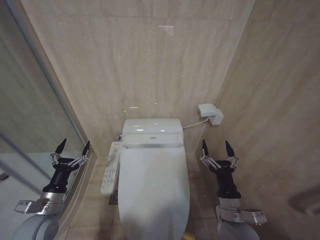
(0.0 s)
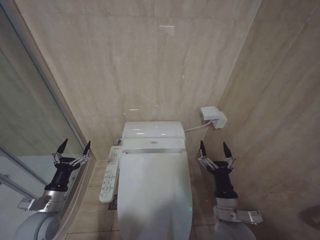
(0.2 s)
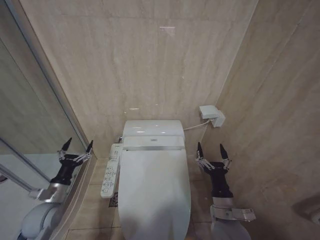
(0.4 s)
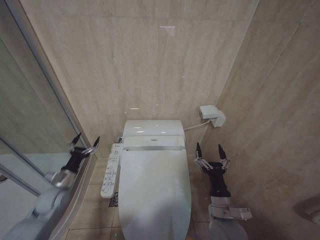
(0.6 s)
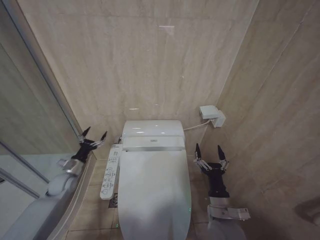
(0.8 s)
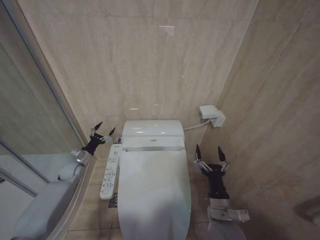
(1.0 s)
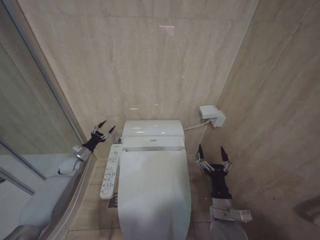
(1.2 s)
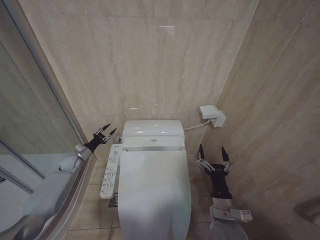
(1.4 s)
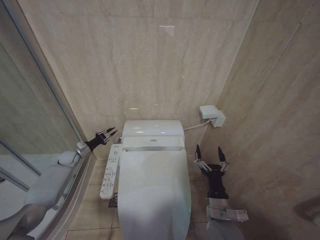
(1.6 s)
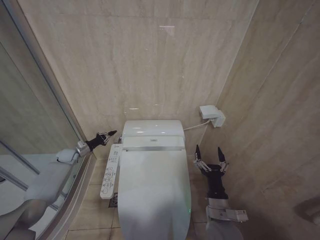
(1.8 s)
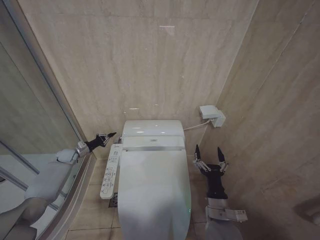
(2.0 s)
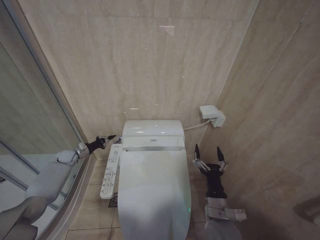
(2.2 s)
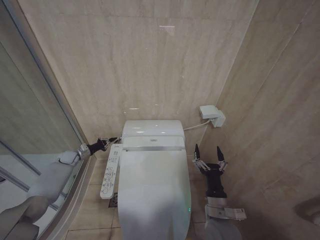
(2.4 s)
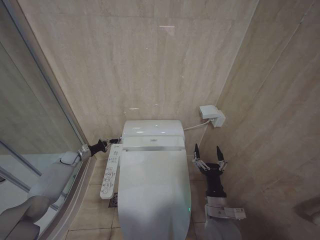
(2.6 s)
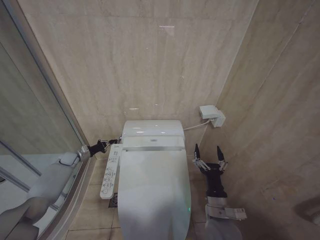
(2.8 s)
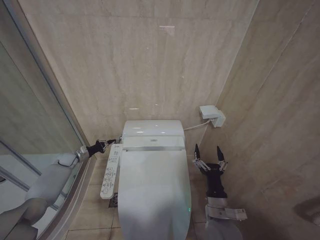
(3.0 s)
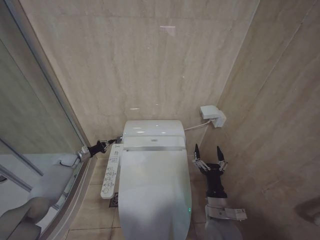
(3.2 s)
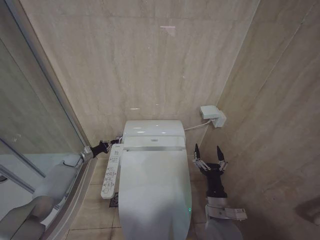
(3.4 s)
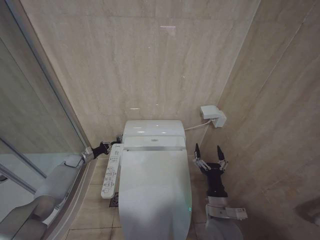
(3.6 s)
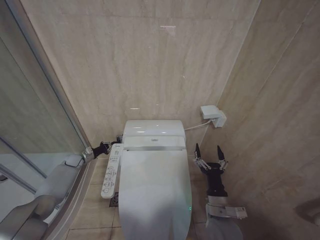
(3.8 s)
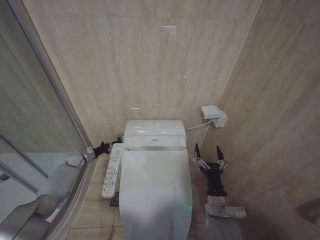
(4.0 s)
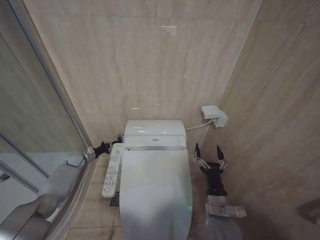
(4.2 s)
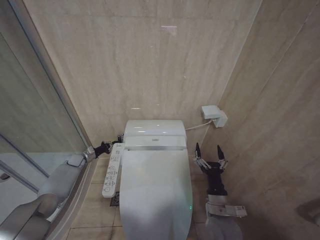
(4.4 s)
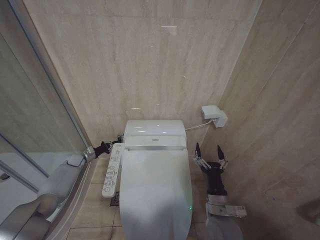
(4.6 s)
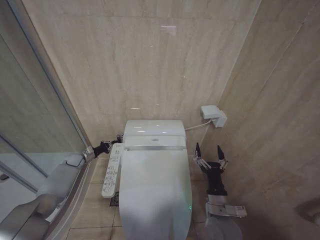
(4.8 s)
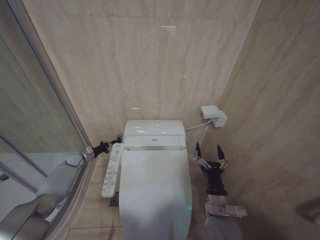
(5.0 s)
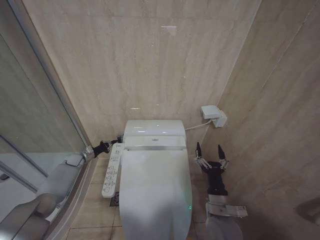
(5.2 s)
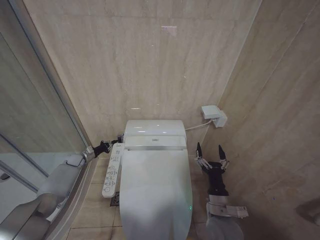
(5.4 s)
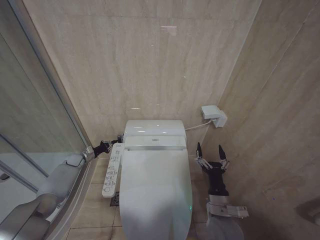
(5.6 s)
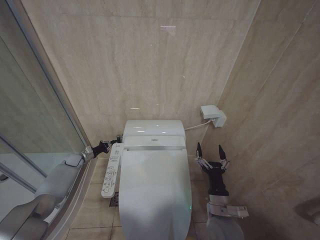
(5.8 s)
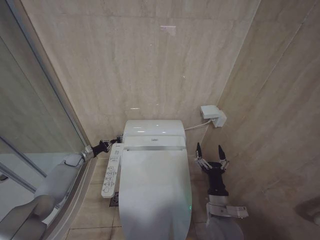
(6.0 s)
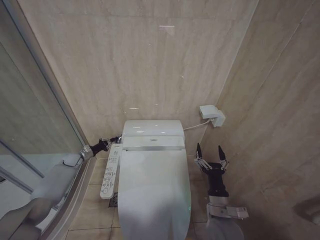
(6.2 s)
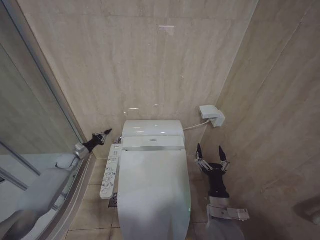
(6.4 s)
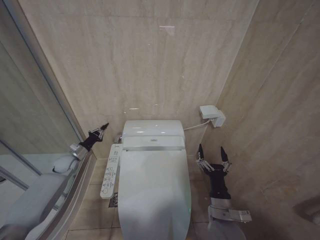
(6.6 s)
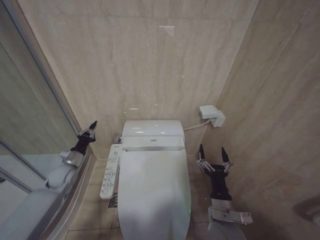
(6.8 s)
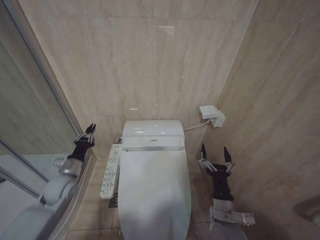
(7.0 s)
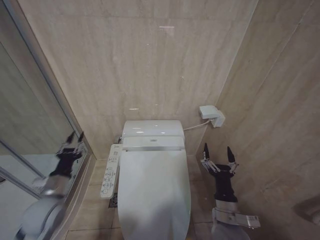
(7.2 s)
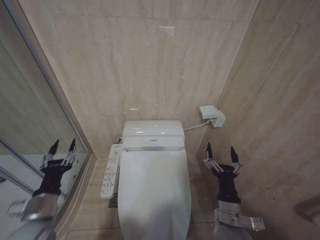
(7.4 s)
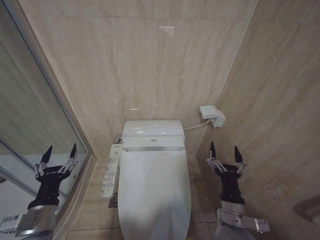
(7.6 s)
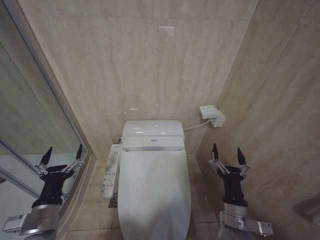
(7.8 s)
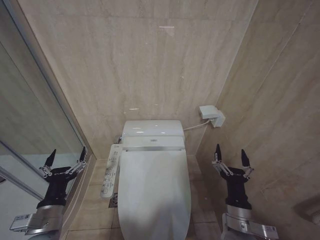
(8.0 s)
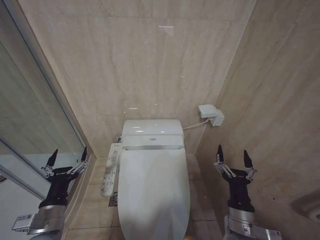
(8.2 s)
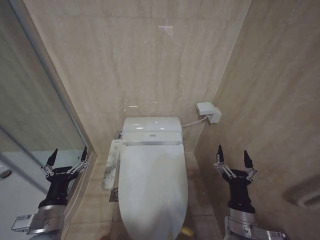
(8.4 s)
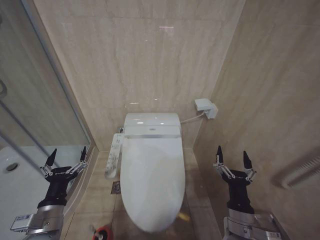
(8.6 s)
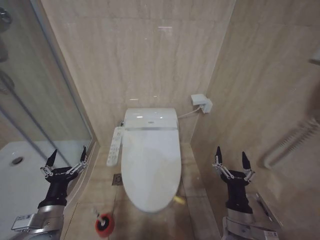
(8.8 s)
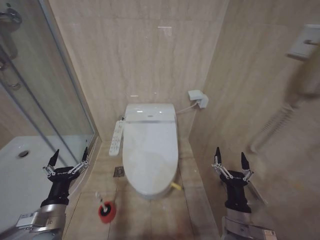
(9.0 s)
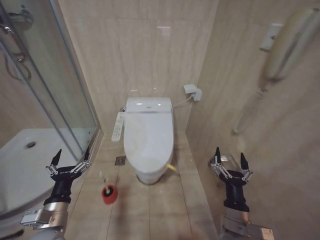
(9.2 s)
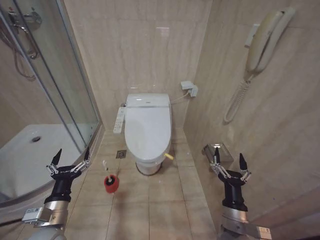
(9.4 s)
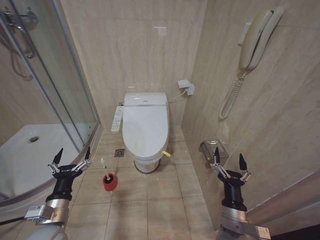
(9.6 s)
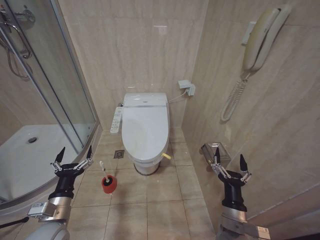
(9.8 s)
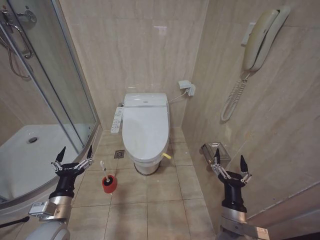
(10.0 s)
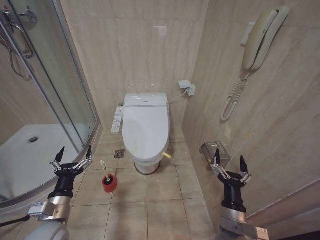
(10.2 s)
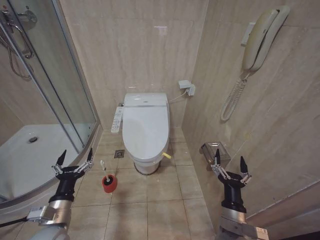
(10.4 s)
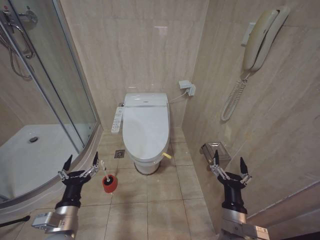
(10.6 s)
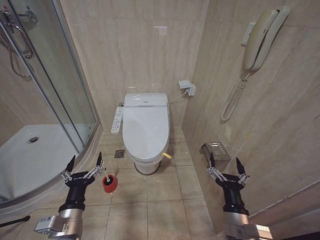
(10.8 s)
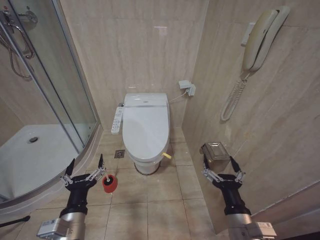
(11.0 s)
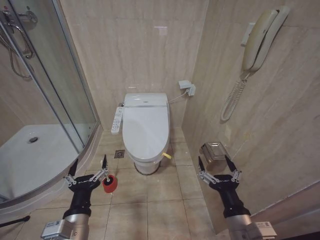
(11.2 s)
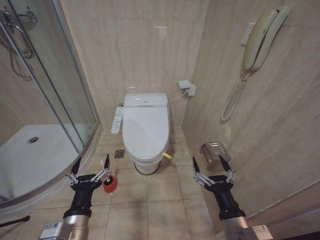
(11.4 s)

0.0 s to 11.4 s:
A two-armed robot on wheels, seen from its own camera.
Task of the whole recording: Open the toilet lid, clean the toilet bowl with a toilet brush, close the toilet lid, and flush.
0.0 to 1.4 s: The left gripper travels forward by approximately 25 cm.
1.4 to 2.8 s: The left gripper ends up about 5 cm from where it was, and closes.
2.8 to 4.2 s: The grippers make only small movements.
4.2 to 5.6 s: Both grippers stay put.
5.6 to 7.2 s: The left gripper goes about 30 cm backward and upward.
7.2 to 8.6 s: The left gripper goes approximately 10 cm backward, and opens.
10.0 to 11.4 s: The right gripper heads upward and backward, covering approximately 10 cm. The left gripper is displaced to the right and backward by approximately 10 cm.

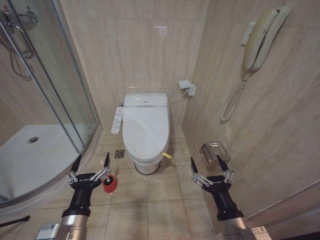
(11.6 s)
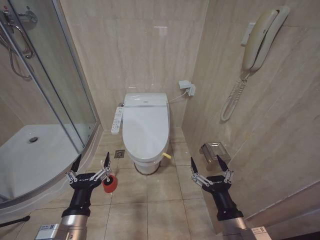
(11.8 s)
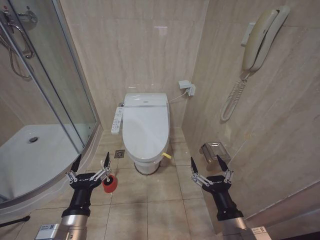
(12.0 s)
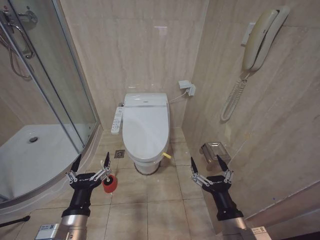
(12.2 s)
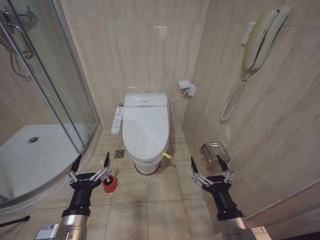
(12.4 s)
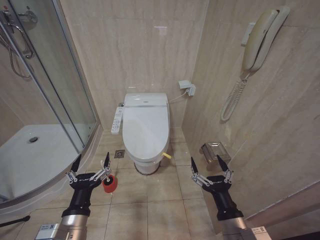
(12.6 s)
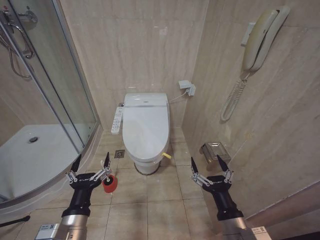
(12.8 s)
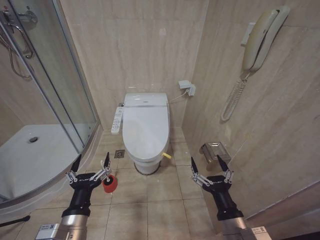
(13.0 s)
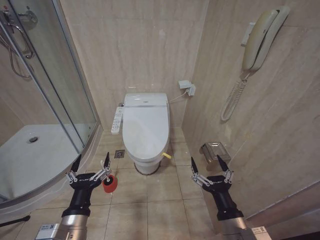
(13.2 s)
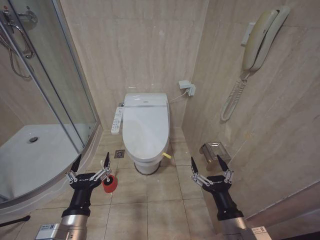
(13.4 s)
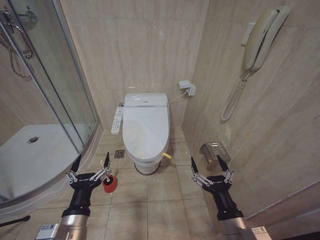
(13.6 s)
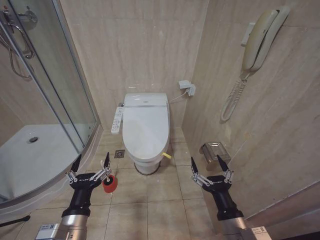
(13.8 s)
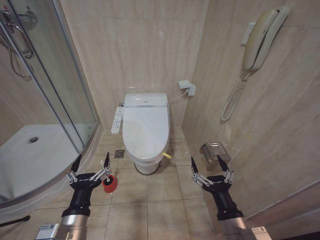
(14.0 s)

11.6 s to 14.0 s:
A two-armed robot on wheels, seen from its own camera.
Task of the whole recording: Open the toilet lid, clean the toilet bowl with a toilet brush, close the toilet lid, and flush.
11.6 to 14.0 s: The two grippers keep their place.
